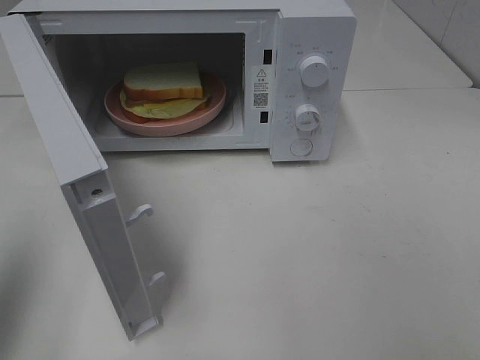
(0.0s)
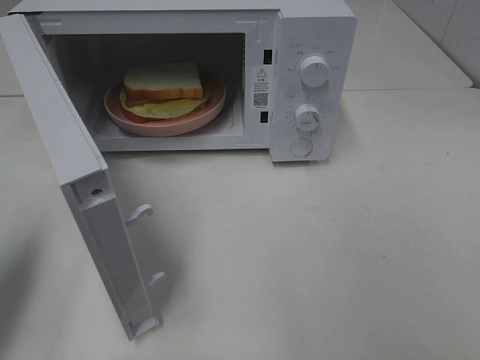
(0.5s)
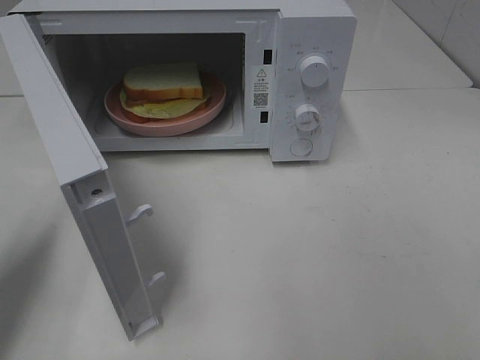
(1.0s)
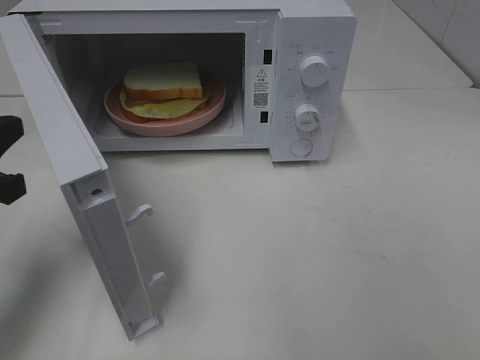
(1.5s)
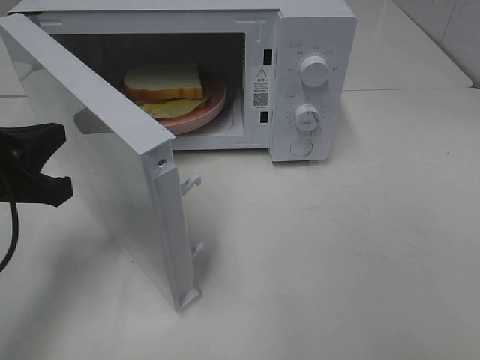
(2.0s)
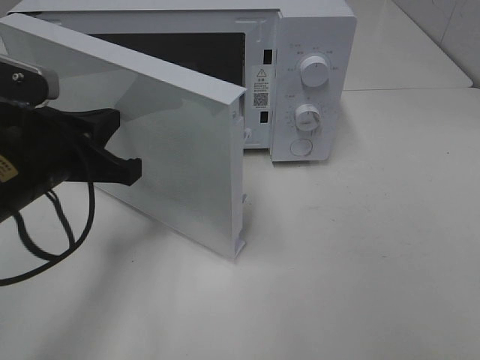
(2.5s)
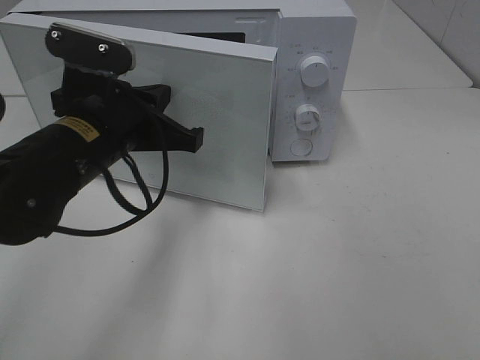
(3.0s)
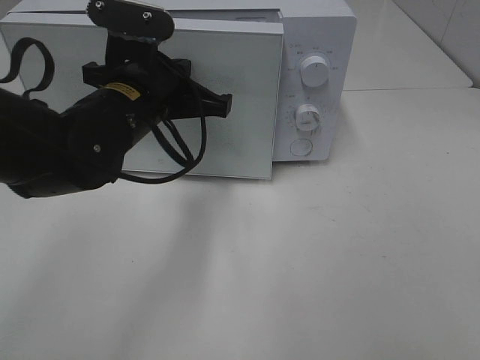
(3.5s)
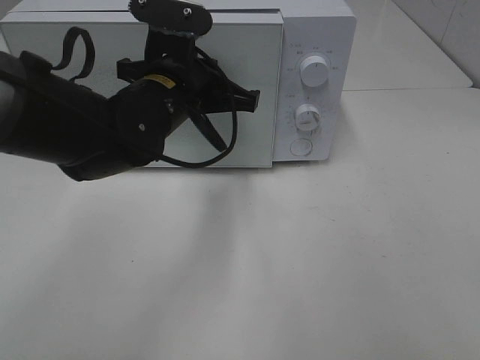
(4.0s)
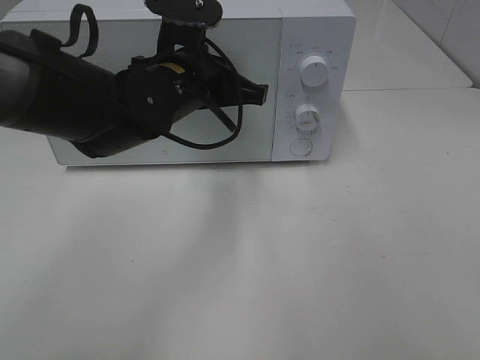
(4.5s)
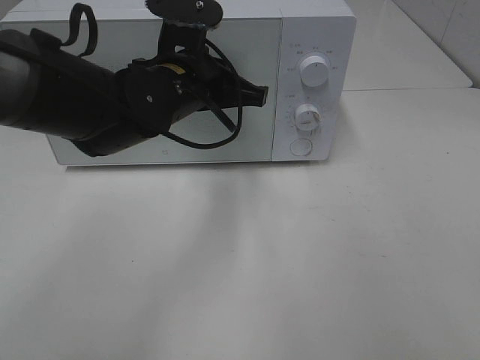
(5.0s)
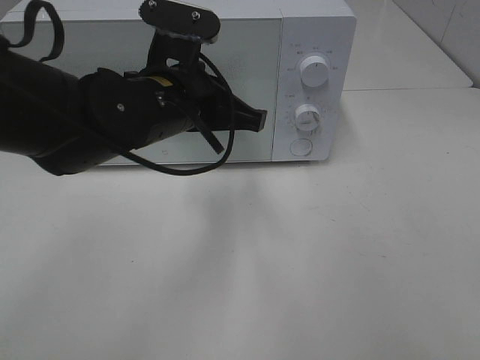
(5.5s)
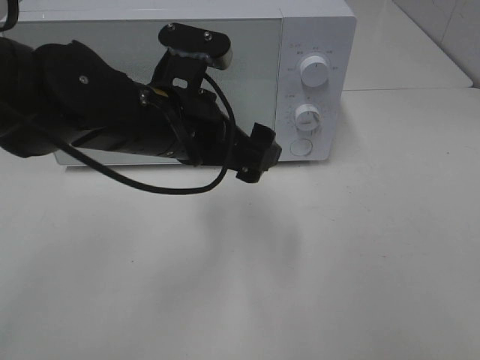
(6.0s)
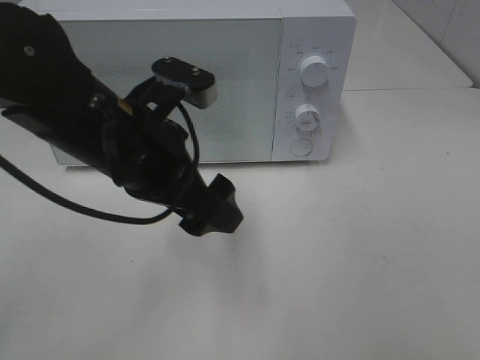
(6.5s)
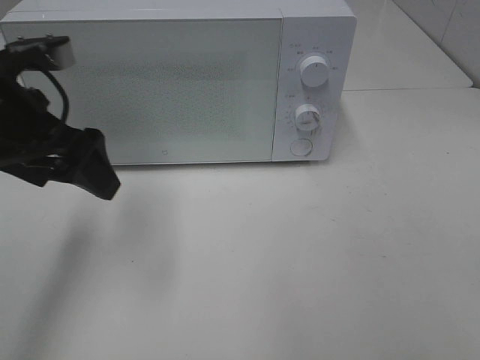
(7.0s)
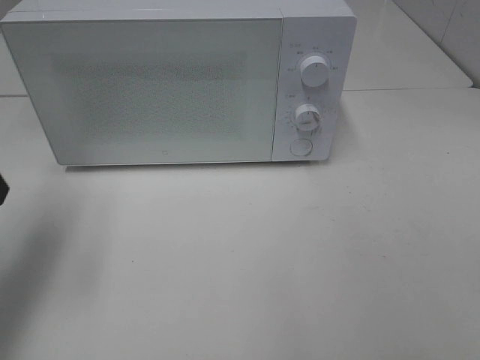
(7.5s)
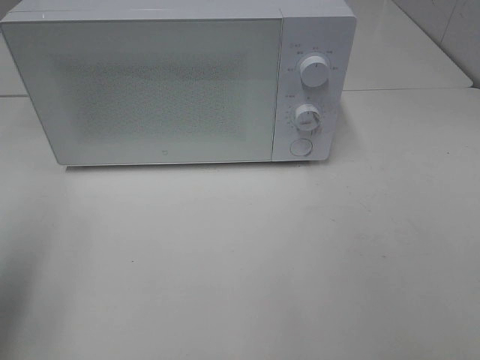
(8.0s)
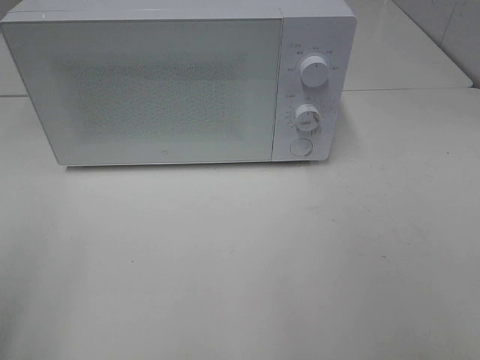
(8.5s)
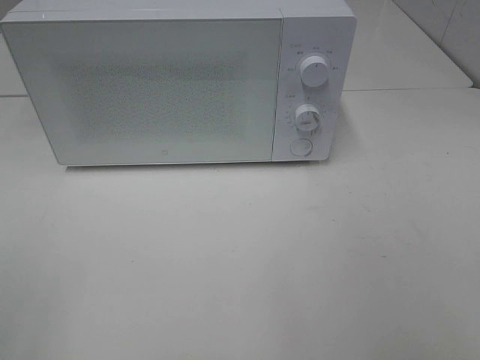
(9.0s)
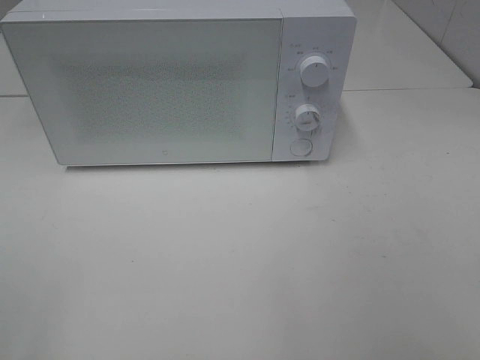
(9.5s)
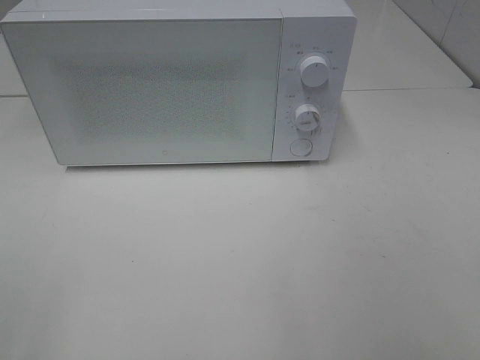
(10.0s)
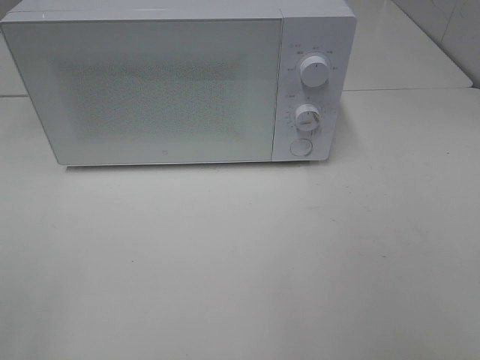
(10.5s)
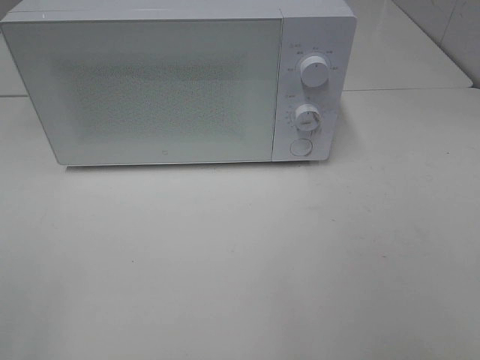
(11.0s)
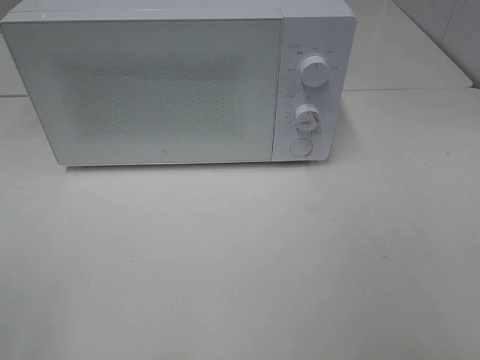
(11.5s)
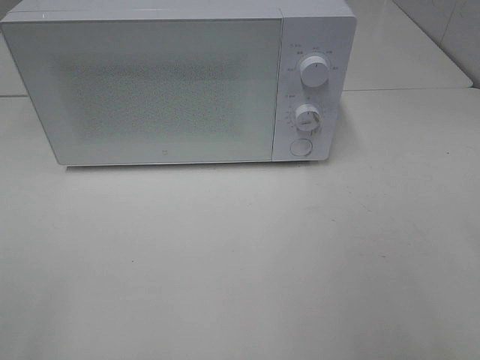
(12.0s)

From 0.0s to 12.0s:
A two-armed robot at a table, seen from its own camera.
Task of the whole recording: Heat Sandwich.
Step, from 0.0s to 5.5s: Left hand: close the microwave door.
From 0.0s to 2.0s: The left gripper heads downward, forward and to the right, covering some 20 cm.
From 2.0s to 4.0s: The left gripper heads to the right and forward, covering approximately 20 cm.
From 4.0s to 6.0s: The left gripper goes some 5 cm backward, and opens.
From 6.0s to 8.0s: The left gripper goes about 30 cm to the left and backward.
From 8.0s to 10.0s: The left gripper travels backward by about 15 cm.

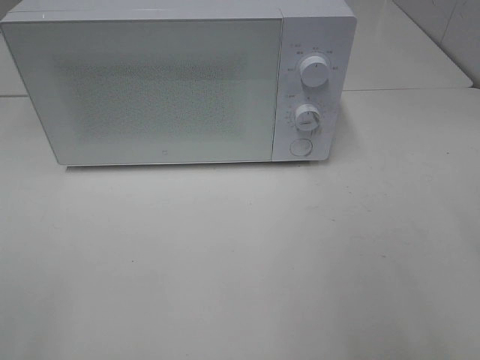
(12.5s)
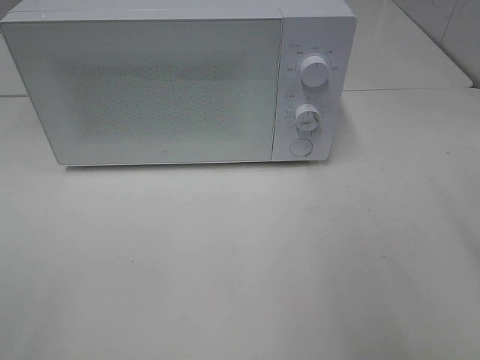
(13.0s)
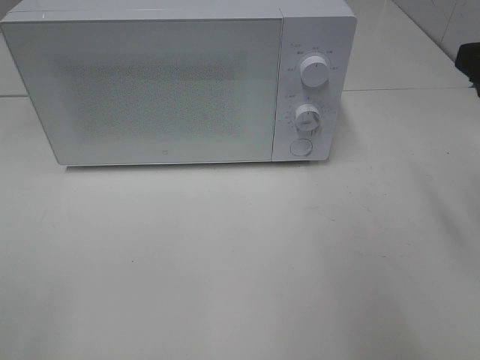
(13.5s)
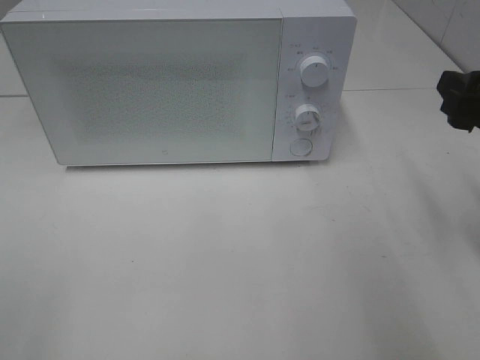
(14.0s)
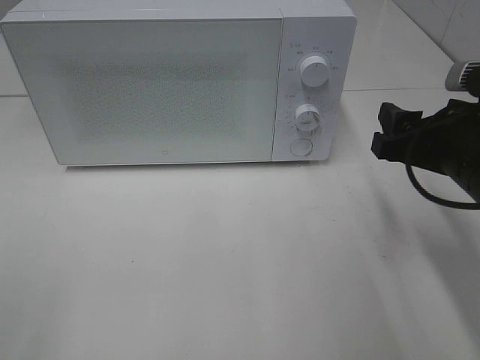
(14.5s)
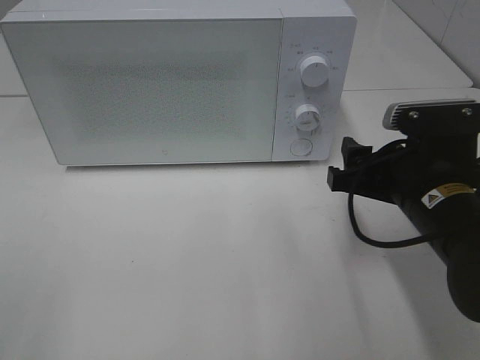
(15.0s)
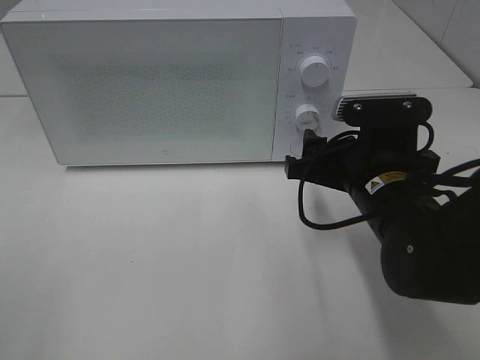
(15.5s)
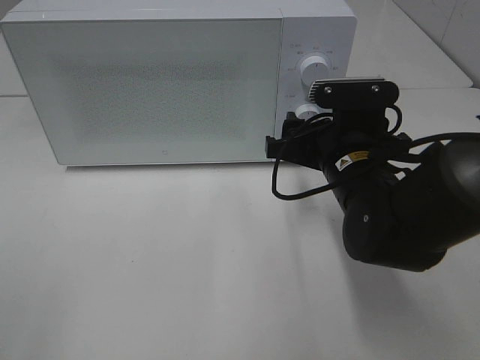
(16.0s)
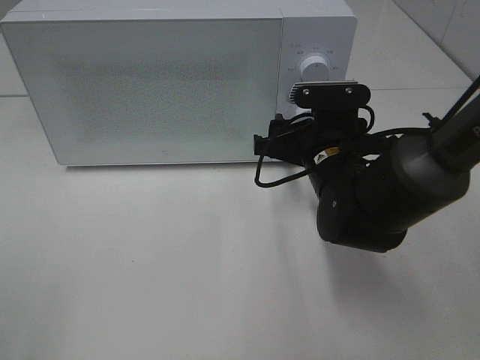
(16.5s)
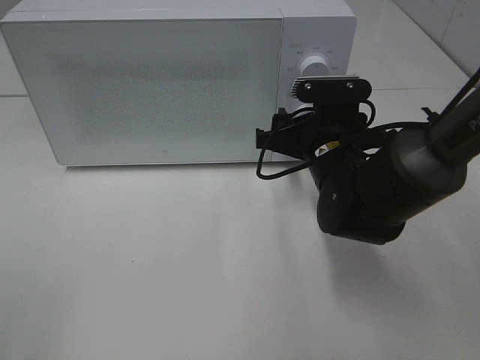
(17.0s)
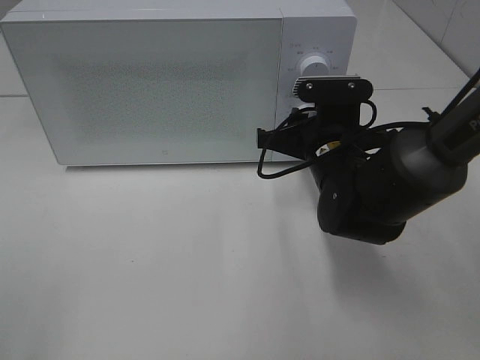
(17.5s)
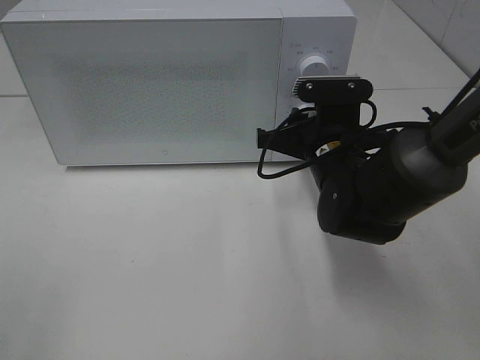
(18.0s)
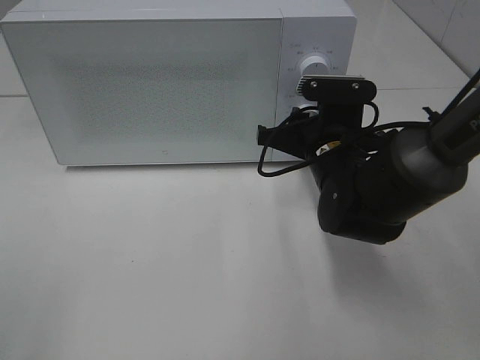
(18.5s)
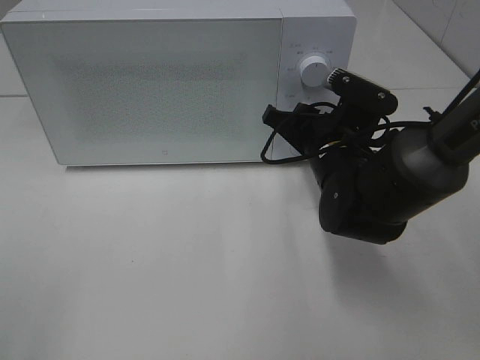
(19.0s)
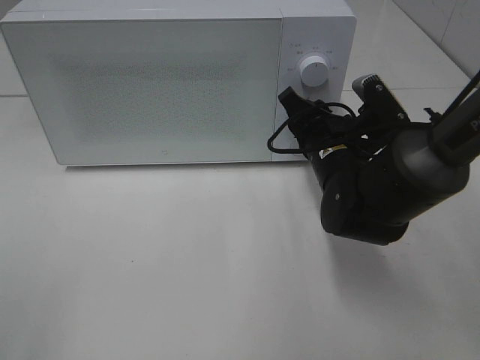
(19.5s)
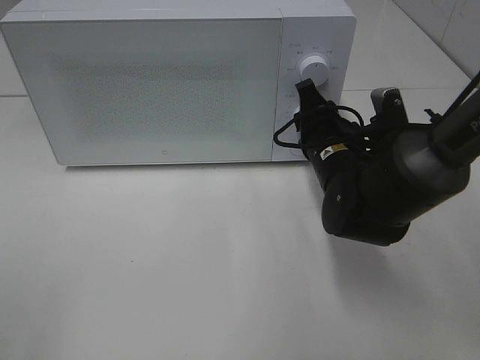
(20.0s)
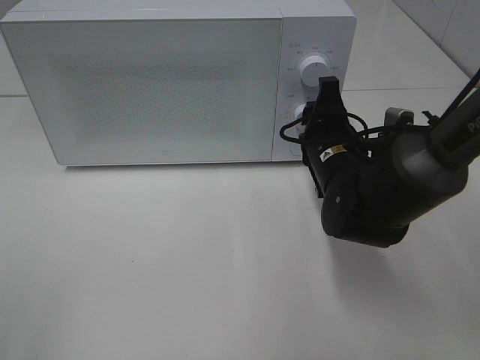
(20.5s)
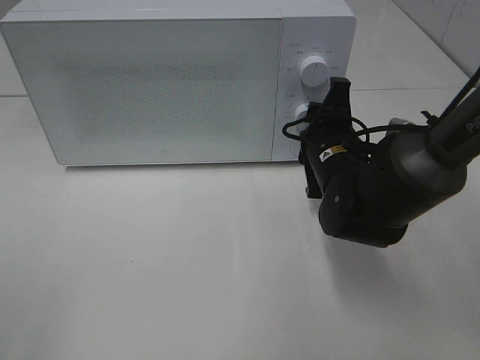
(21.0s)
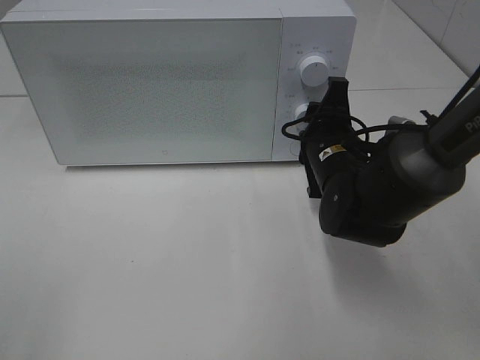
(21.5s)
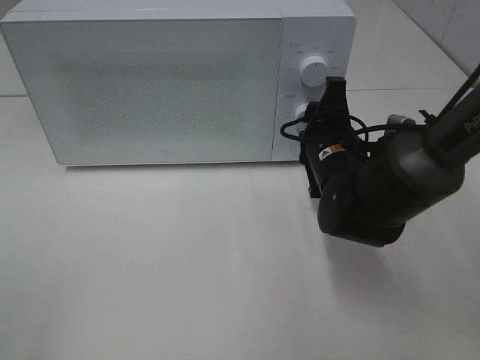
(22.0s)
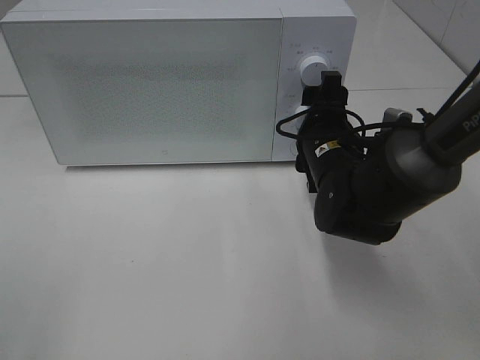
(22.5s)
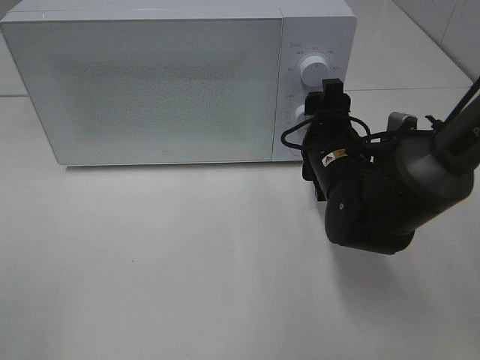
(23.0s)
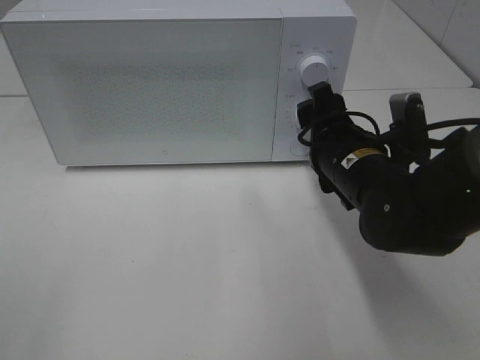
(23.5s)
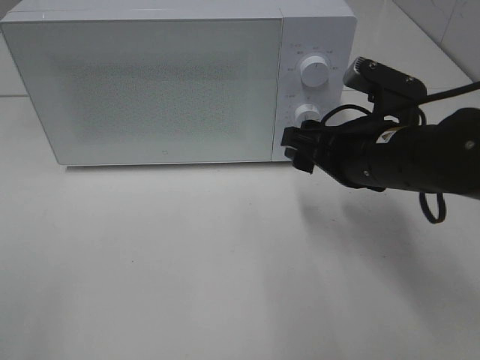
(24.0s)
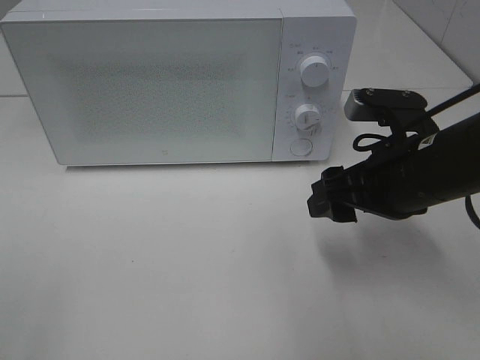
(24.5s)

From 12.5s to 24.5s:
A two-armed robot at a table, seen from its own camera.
Task of the whole recording: Heat Sandwich.
Step, from 12.5s to 23.0s: Right hand: twist timer button.
From 12.5s to 14.5s: The right gripper shifts about 20 cm downward, forward and to the left.
From 14.5s to 16.5s: The right gripper shifts approximately 15 cm to the left, forward and downward.
From 16.5s to 18.5s: The right gripper closes its fingers.
From 20.5s to 22.5s: The right gripper opens.
From 22.5s to 24.5s: The right gripper heads backward, to the right and upward, covering about 10 cm.

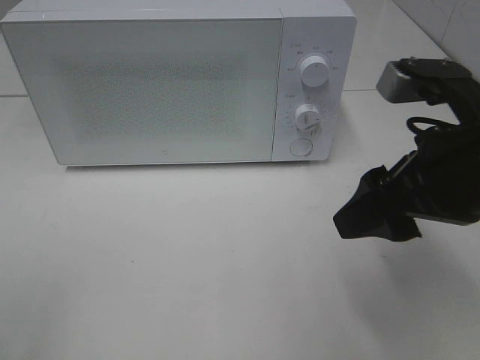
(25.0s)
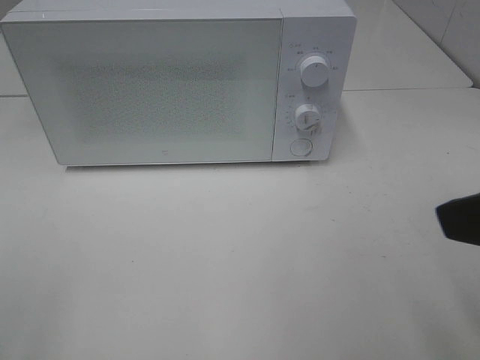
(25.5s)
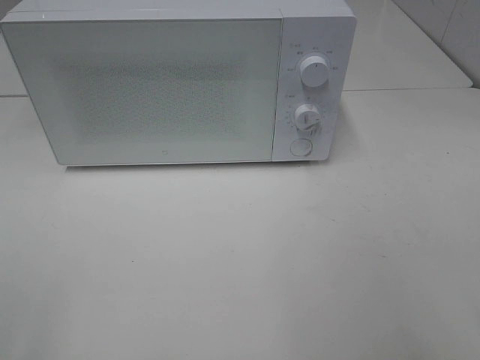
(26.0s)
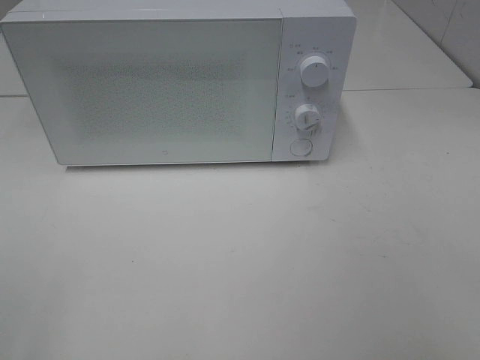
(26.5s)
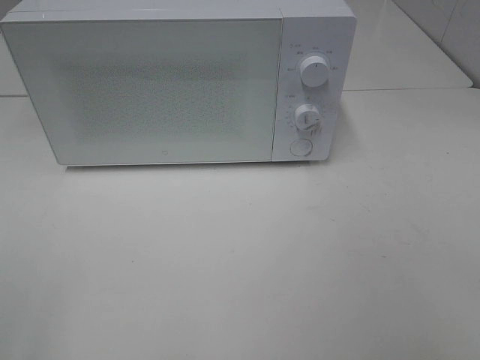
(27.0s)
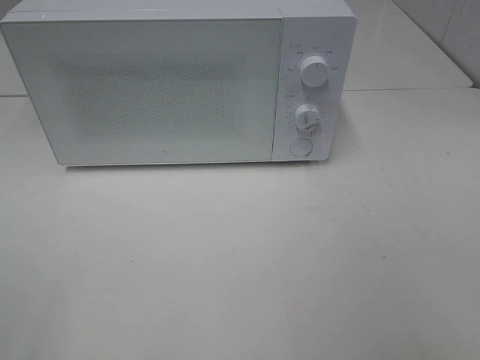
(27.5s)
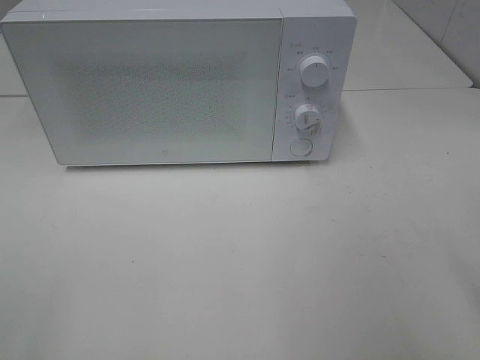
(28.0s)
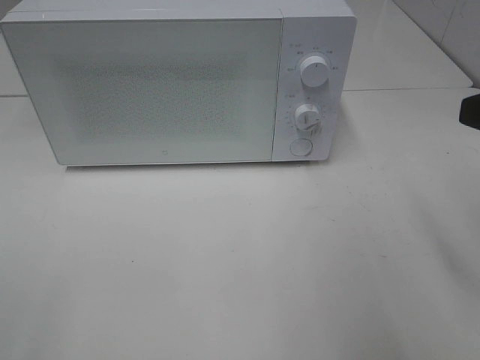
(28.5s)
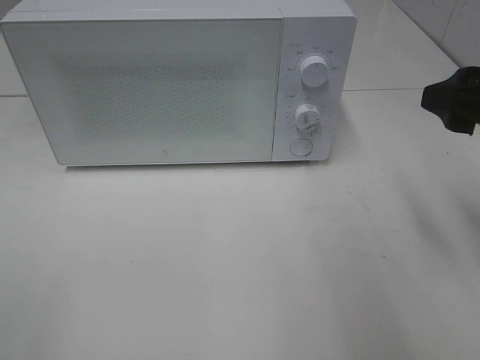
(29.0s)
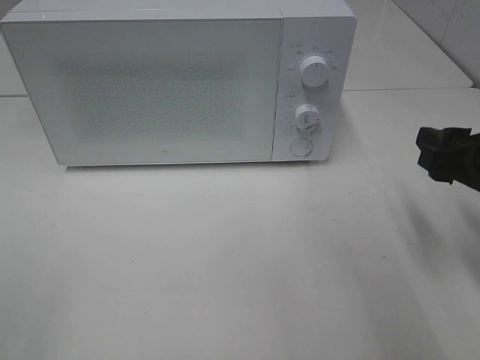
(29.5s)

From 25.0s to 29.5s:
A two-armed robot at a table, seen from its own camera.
Task of the whole recording: Heat Sandwich.
From 25.0s to 27.0s: The right gripper shifts some 20 cm backward and to the right.
From 27.0s to 29.5s: The right gripper shifts some 25 cm forward and downward.
